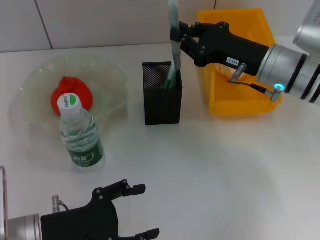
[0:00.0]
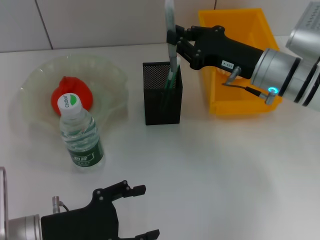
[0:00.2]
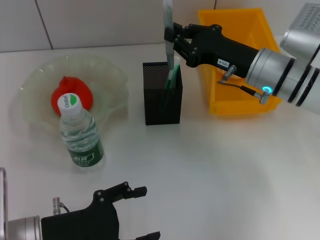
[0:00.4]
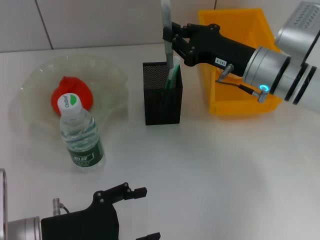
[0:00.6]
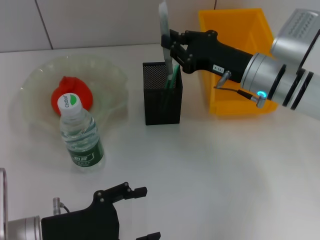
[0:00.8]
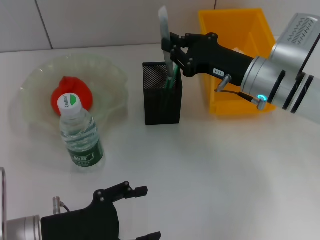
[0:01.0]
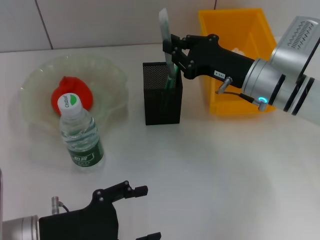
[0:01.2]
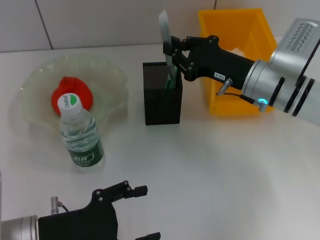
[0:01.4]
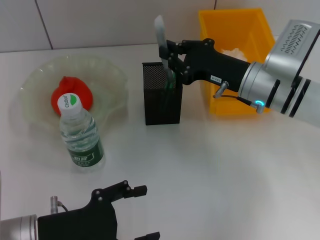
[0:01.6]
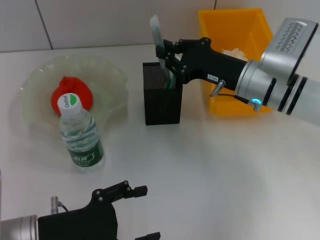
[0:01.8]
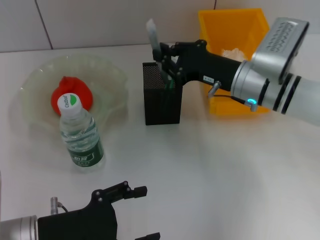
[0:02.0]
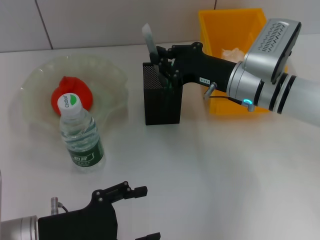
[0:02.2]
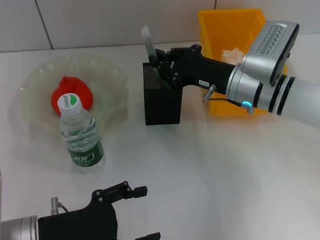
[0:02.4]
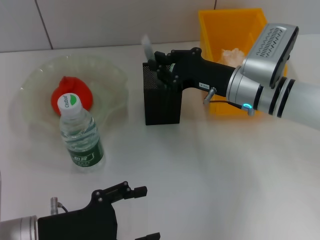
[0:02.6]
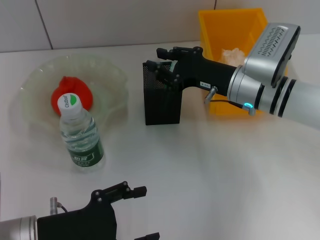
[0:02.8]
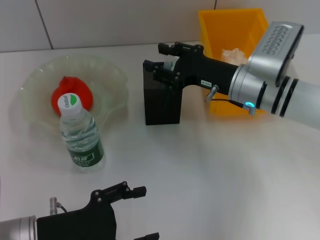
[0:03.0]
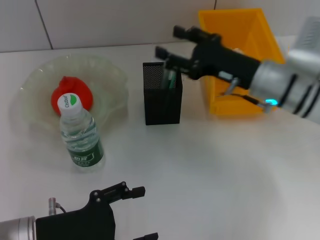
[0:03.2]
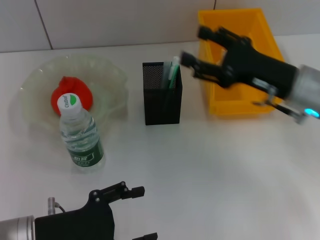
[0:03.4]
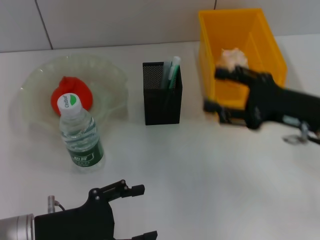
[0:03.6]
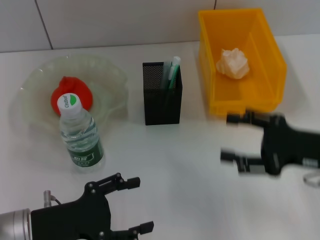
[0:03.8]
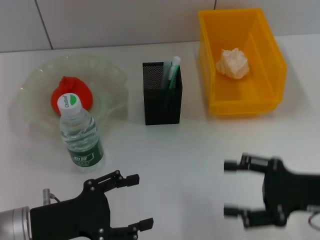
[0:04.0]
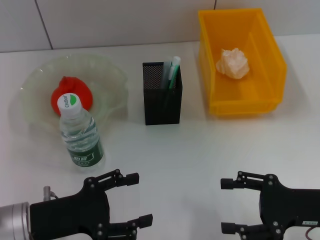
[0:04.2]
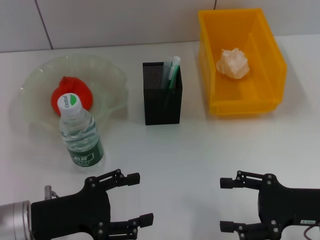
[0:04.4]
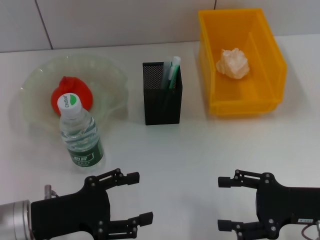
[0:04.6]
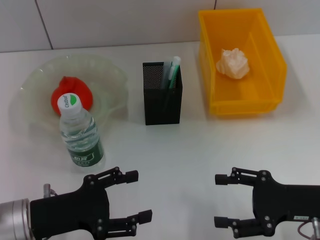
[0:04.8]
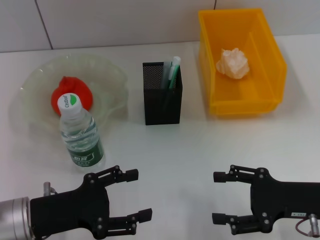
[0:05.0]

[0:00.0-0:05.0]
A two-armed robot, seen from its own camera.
Step, 0:00.0 to 0:02.6: Place the gray glue into the pen holder with the right hand.
0:00.0 to 0:01.6: The grippers make only small movements.
0:01.6 to 0:03.4: The right gripper goes about 5 cm to the right, and opens up.
0:03.4 to 0:05.0: The right gripper moves backward and downward, some 10 cm.

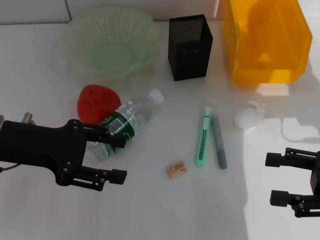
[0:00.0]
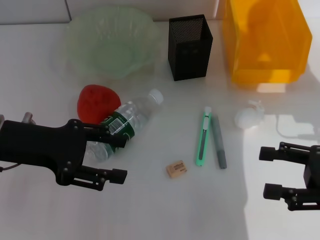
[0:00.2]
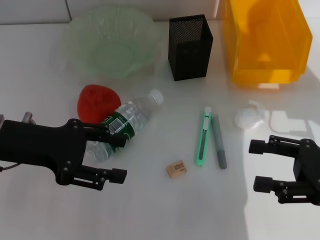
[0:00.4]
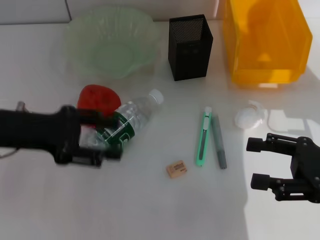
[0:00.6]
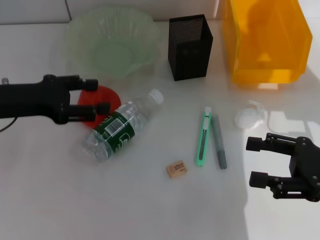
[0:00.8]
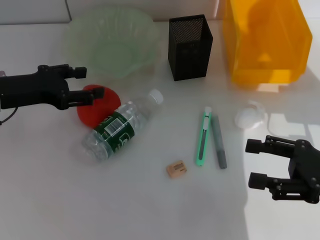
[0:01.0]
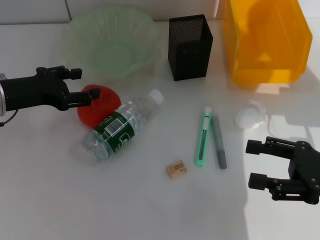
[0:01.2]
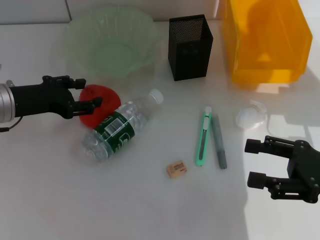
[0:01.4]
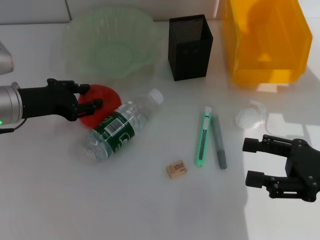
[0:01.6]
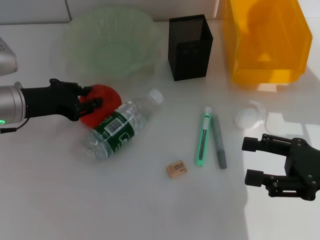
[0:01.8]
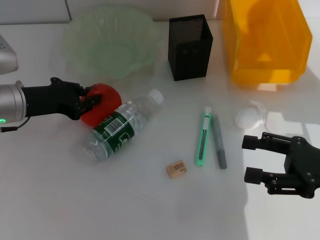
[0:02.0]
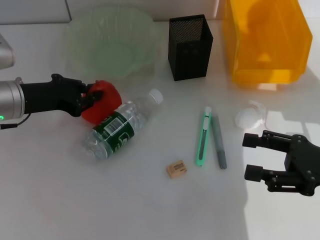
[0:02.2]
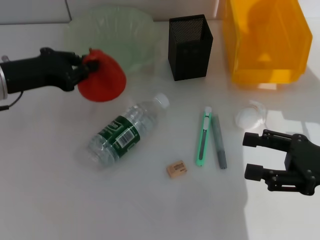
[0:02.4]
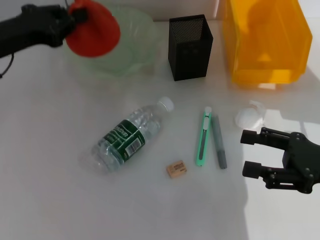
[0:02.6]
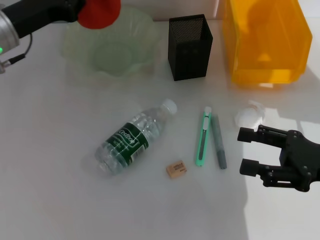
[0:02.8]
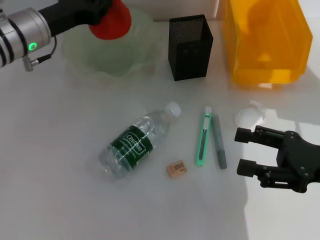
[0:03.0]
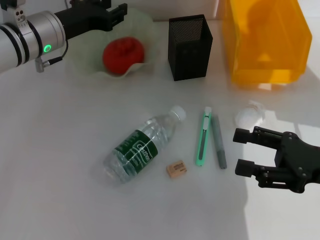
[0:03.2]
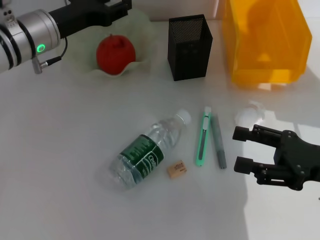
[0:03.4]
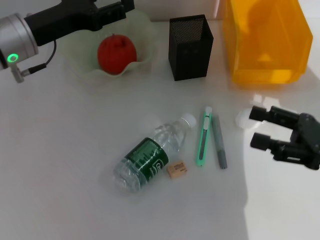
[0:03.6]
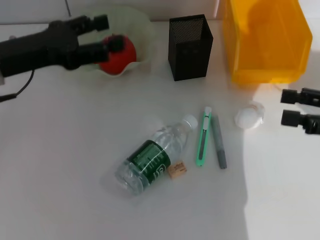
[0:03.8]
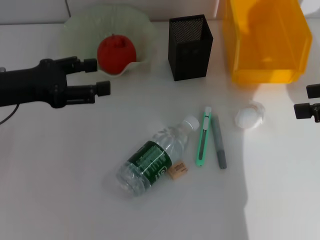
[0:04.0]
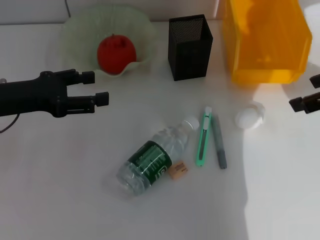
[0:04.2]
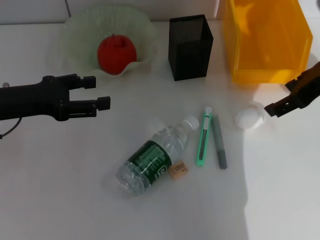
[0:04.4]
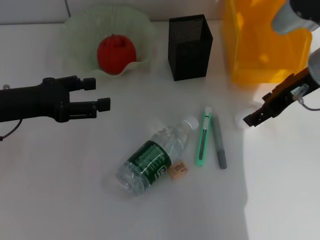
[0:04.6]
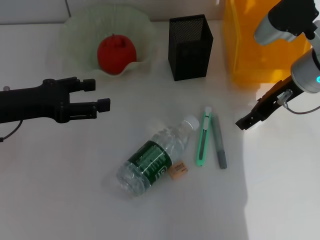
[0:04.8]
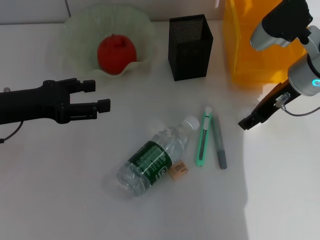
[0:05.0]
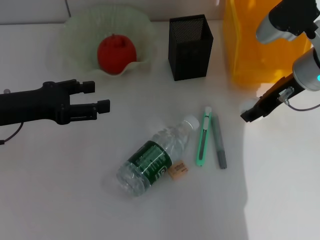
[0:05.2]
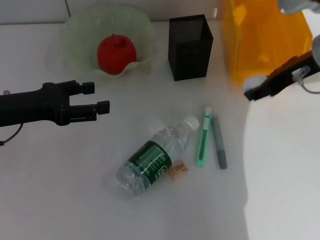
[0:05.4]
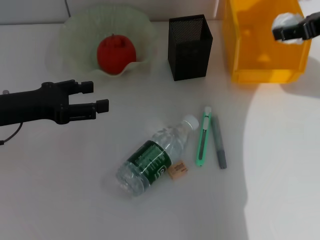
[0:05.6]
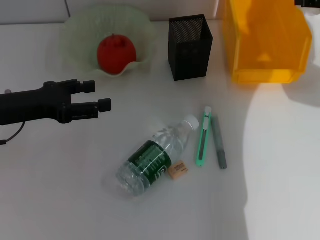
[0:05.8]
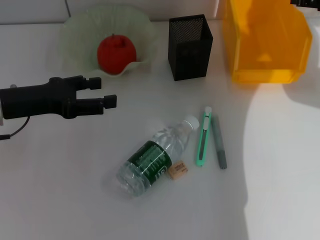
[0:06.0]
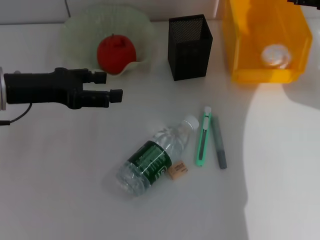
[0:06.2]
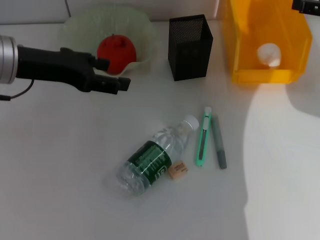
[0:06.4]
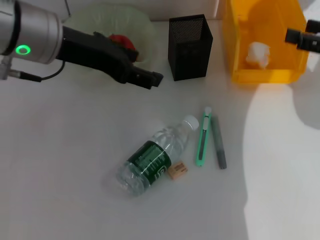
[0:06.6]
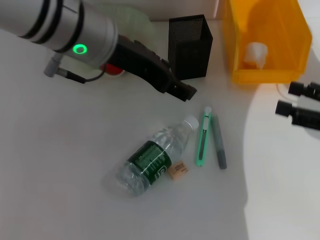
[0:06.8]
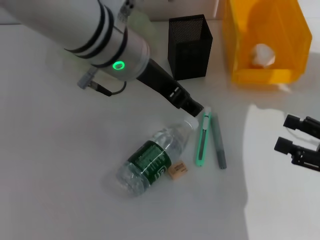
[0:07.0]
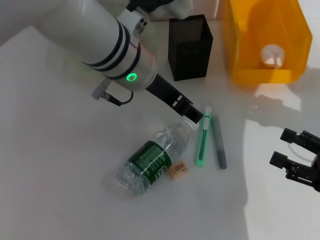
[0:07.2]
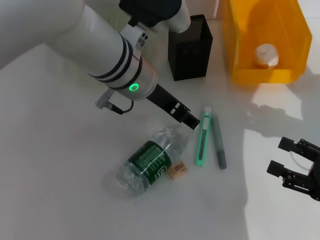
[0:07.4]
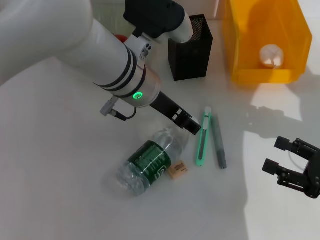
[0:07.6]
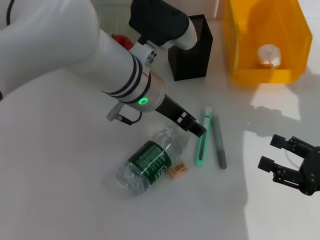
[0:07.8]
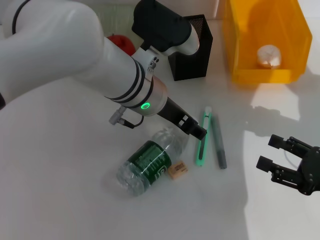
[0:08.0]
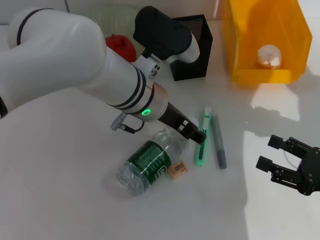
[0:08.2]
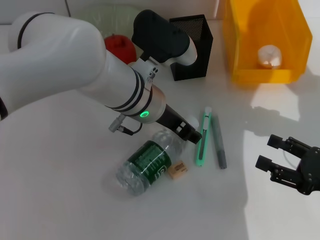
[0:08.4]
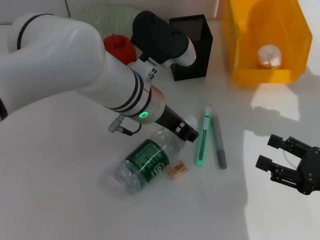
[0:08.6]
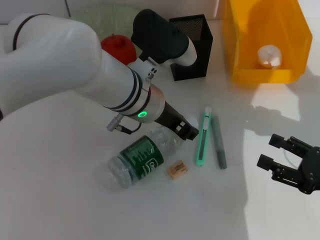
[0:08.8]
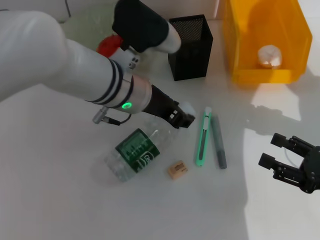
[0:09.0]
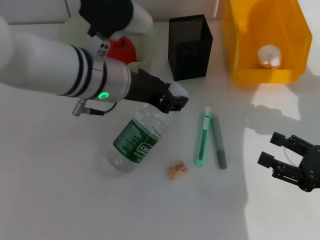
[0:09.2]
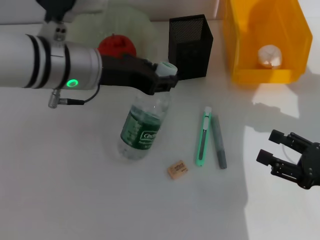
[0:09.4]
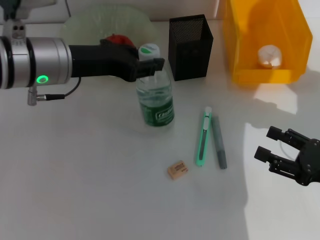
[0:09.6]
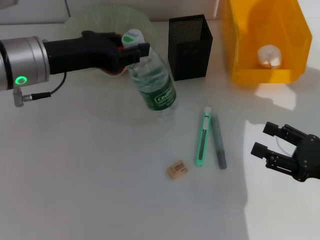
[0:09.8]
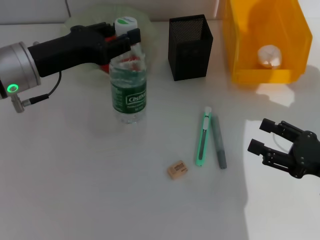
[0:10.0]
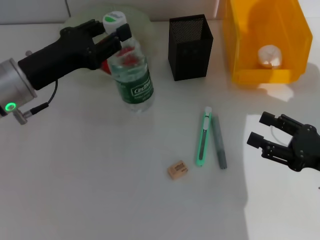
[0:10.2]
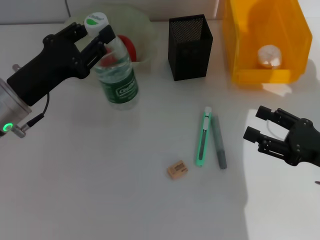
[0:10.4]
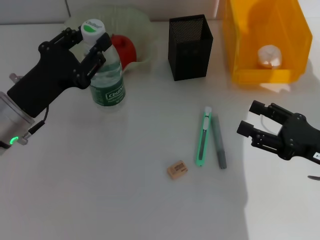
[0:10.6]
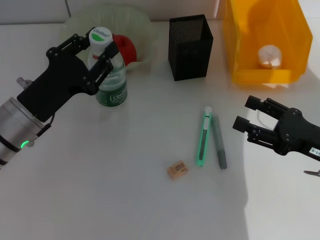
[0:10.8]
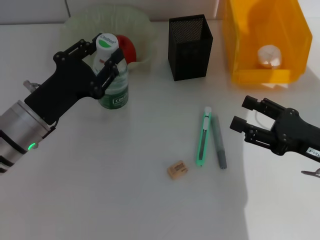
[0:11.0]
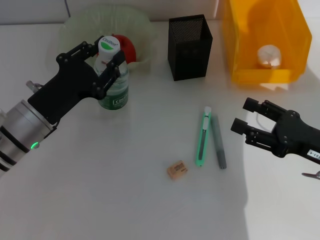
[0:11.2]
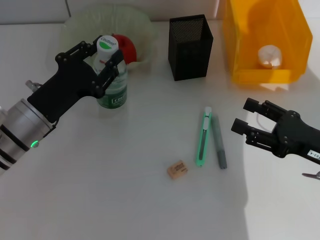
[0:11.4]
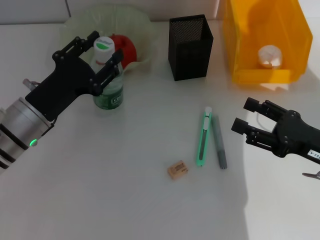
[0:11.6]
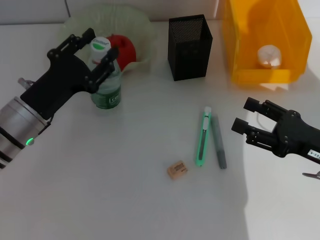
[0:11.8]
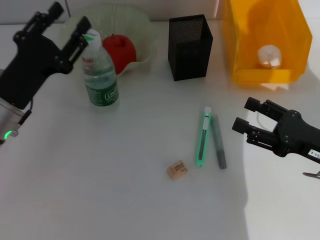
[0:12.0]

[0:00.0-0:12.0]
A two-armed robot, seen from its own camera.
Step, 0:00.0 to 0:02.0: Grab the orange with the left hand.
Step, 0:02.2 to 0:03.2: Place the orange into the fruit bowl with the left hand.
Step, 0:03.4 to 0:04.8: Grab the paper ball with the right hand.
Step, 0:05.2 to 0:07.2: Place the paper ball into the trash can with the right hand.
Step, 0:07.4 to 0:08.6: Grab the water bottle with the left hand.
0:00.0 to 0:01.6: The left gripper moves forward, approximately 5 cm.
0:01.6 to 0:03.0: The left gripper is displaced forward by approximately 5 cm, and closes its fingers.
0:03.0 to 0:04.4: The right gripper moves upward and forward, roughly 20 cm, while the left gripper goes about 10 cm backward and to the left, and opens its fingers.
0:04.4 to 0:06.0: The right gripper heads to the right, covering some 5 cm, and closes its fingers.
0:06.0 to 0:07.6: The right gripper goes about 25 cm backward and downward, and opens up; the left gripper shifts approximately 20 cm to the right.
0:07.6 to 0:09.0: The left gripper closes.
0:09.0 to 0:10.4: The left gripper travels to the left by some 20 cm.

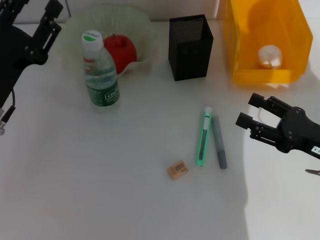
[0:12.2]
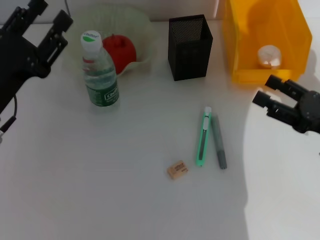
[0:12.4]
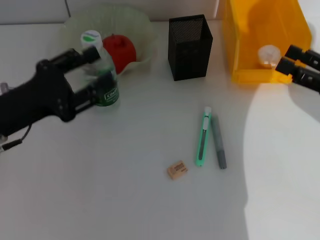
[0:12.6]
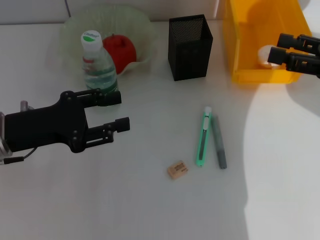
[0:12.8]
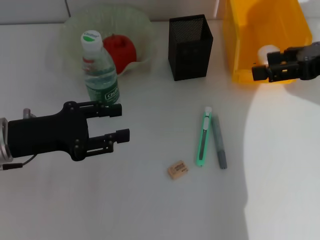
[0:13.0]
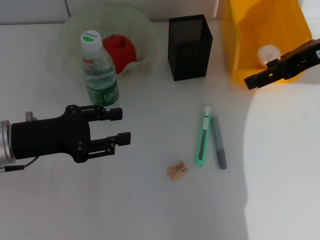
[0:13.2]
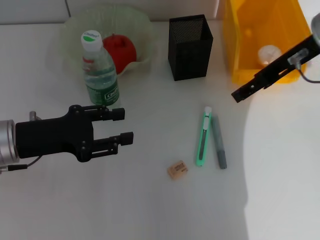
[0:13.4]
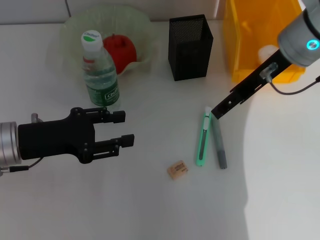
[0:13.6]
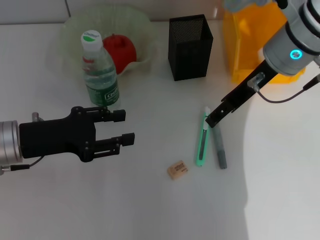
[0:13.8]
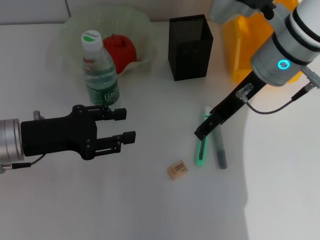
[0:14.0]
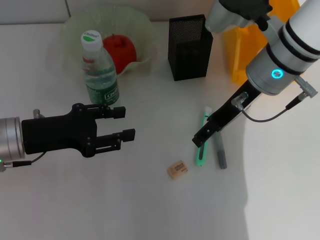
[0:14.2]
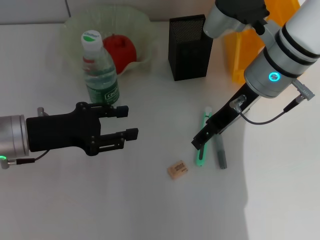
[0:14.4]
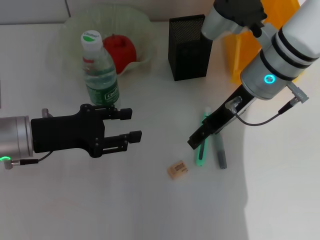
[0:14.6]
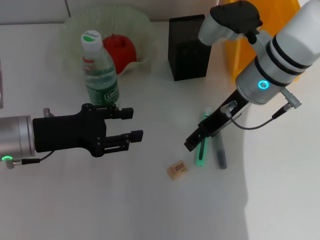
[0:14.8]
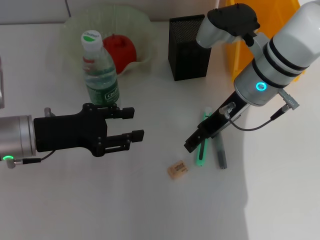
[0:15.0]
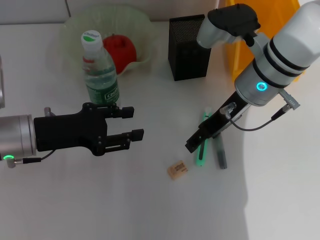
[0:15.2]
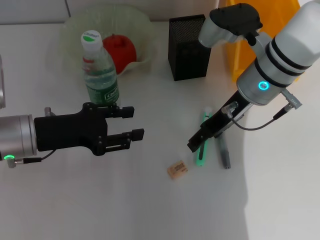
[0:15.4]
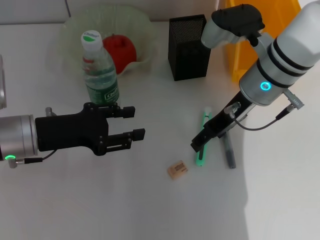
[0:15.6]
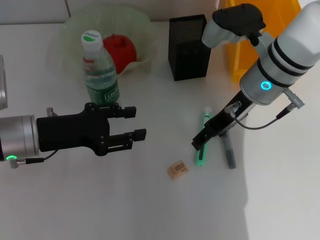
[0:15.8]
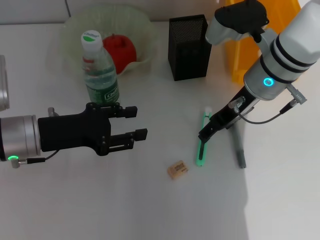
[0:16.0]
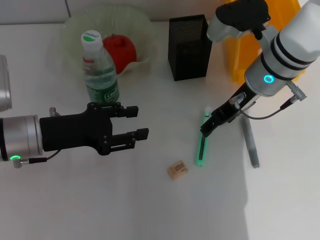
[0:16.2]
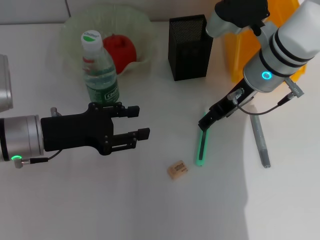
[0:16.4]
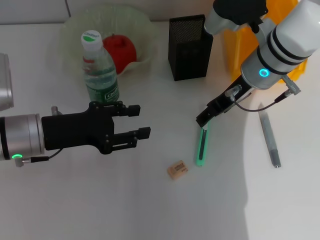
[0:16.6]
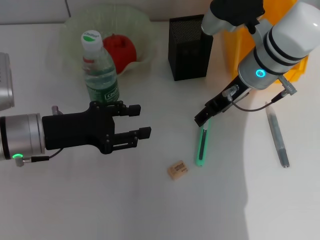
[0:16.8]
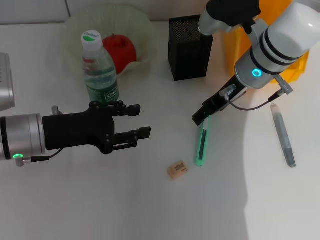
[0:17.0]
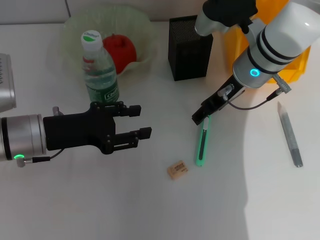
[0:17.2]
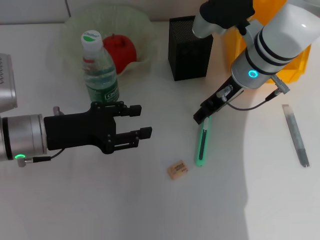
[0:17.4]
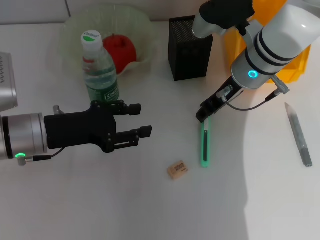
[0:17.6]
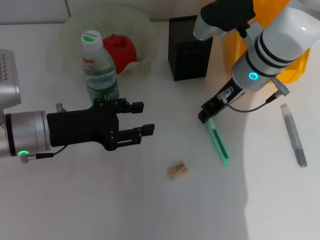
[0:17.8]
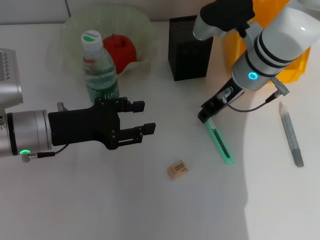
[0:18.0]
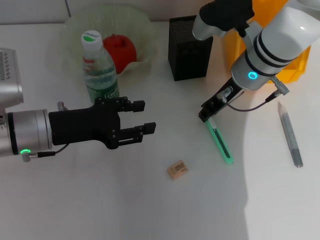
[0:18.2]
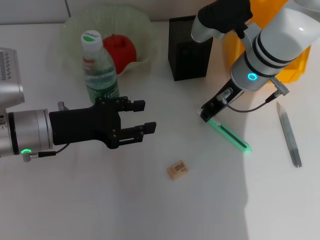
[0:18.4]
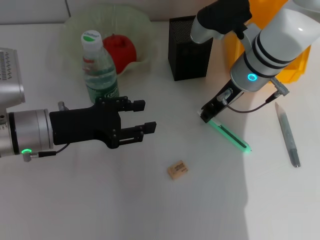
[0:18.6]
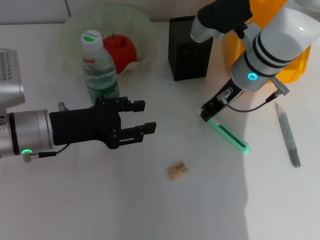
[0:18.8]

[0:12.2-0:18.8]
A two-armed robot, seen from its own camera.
Step, 0:12.2 to 0:18.6: Grab the blue utility knife with the right hand.
0:12.2 to 0:13.8: The right gripper goes approximately 25 cm upward, forward and to the left.
0:13.8 to 0:15.4: The right gripper moves downward, roughly 5 cm.
0:15.4 to 0:17.2: The grippers make only small movements.
0:17.2 to 0:18.8: The right gripper closes up.
